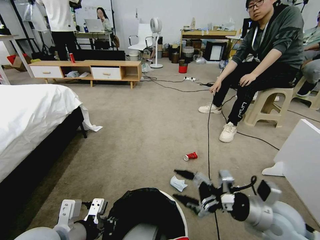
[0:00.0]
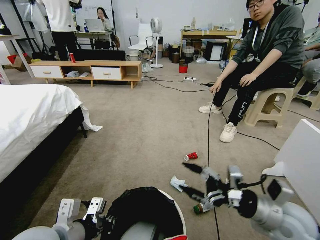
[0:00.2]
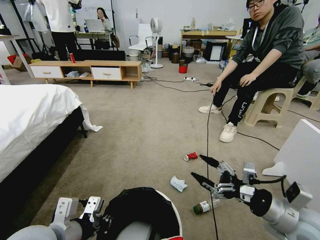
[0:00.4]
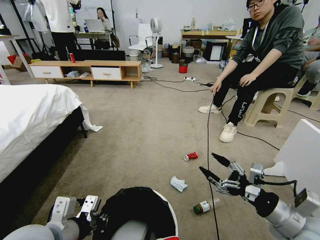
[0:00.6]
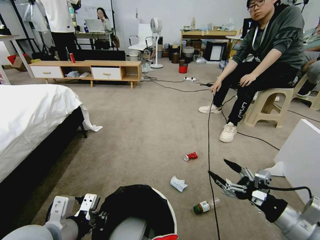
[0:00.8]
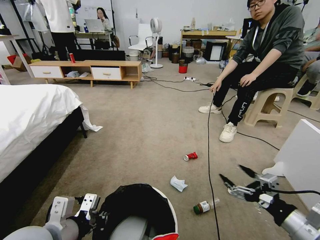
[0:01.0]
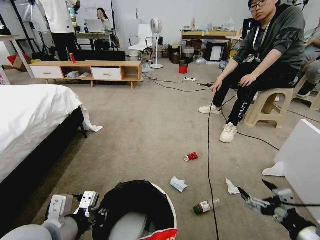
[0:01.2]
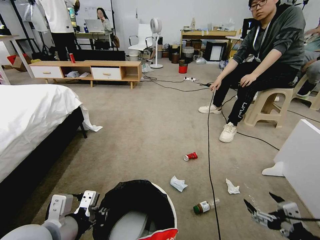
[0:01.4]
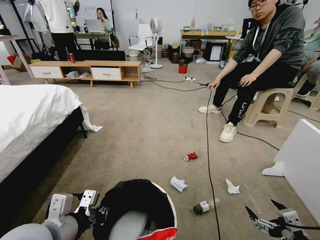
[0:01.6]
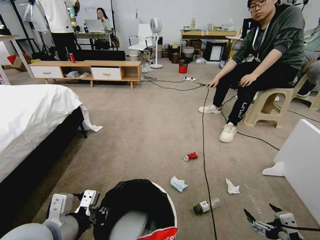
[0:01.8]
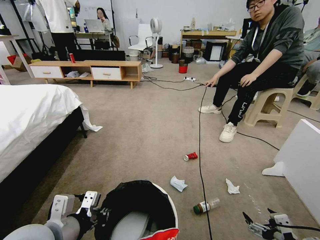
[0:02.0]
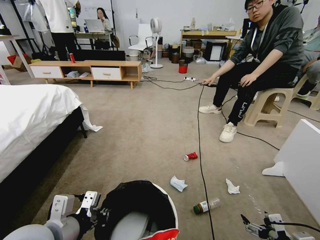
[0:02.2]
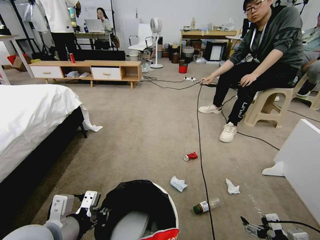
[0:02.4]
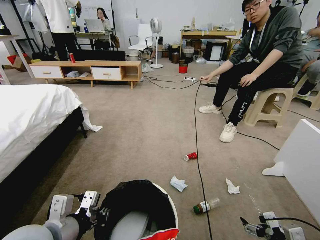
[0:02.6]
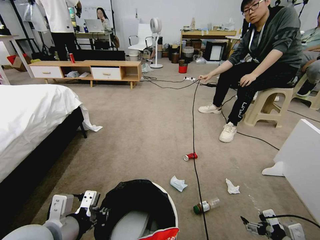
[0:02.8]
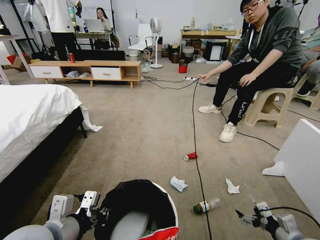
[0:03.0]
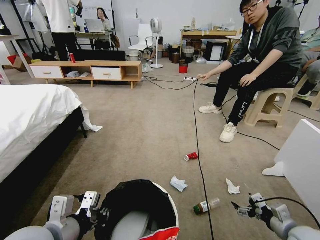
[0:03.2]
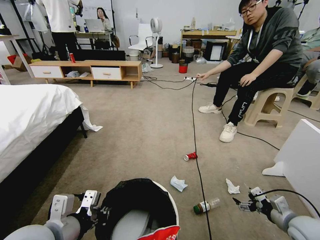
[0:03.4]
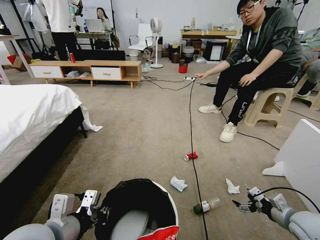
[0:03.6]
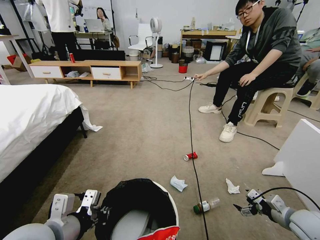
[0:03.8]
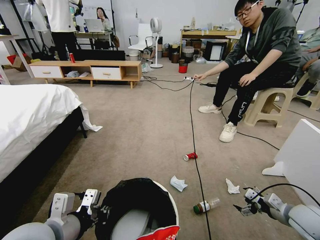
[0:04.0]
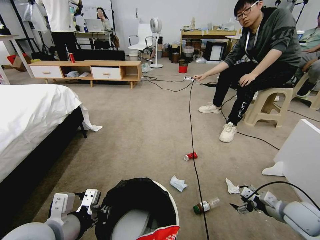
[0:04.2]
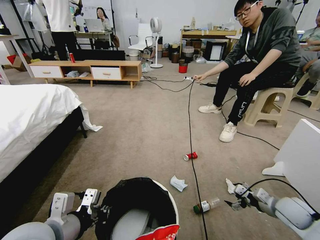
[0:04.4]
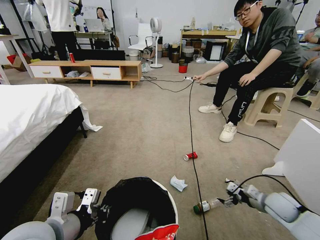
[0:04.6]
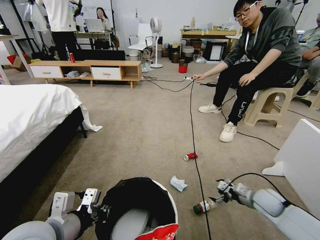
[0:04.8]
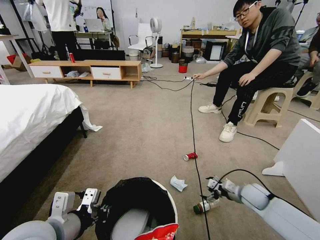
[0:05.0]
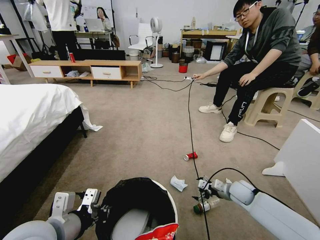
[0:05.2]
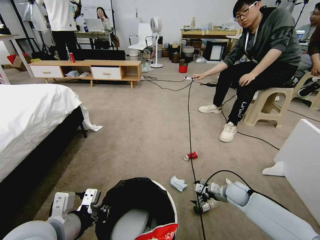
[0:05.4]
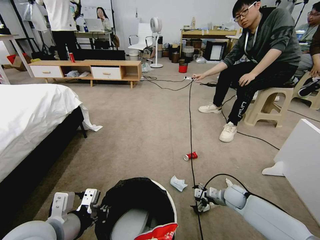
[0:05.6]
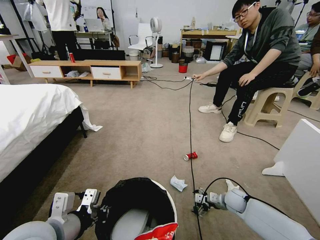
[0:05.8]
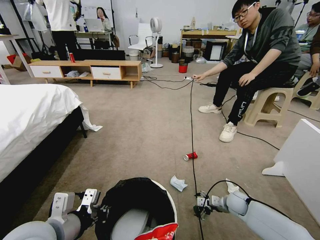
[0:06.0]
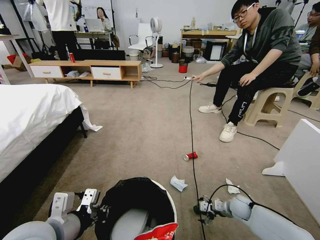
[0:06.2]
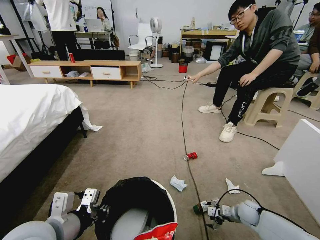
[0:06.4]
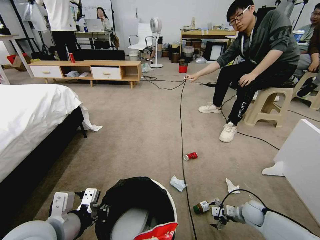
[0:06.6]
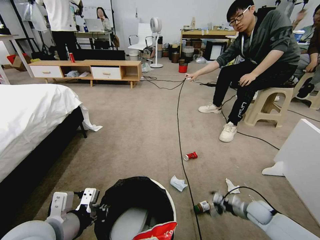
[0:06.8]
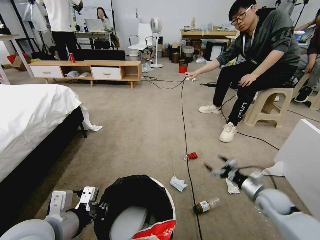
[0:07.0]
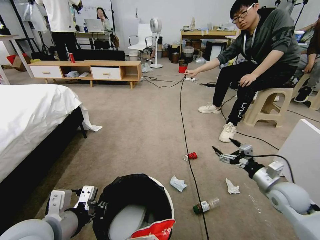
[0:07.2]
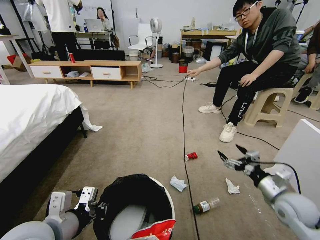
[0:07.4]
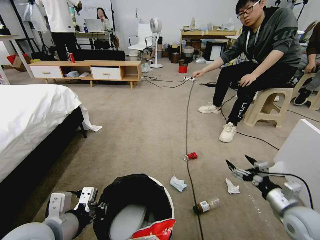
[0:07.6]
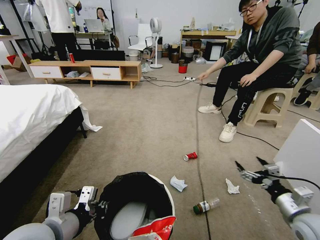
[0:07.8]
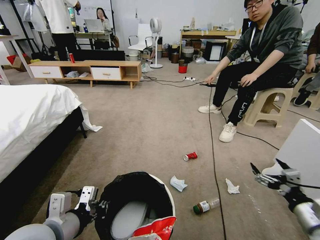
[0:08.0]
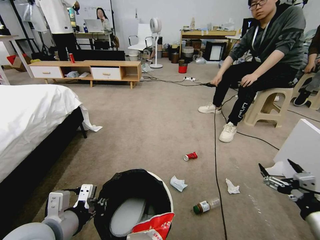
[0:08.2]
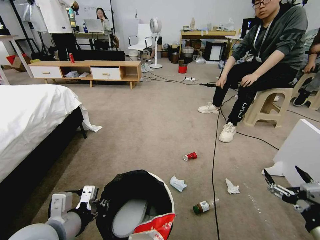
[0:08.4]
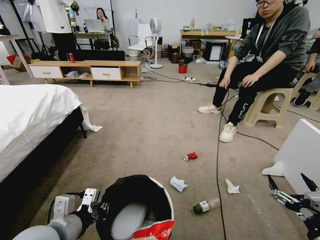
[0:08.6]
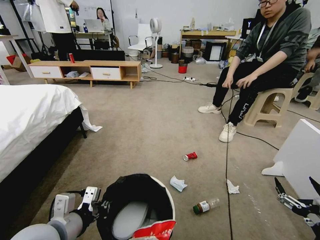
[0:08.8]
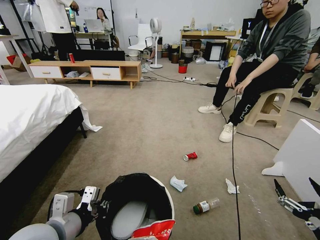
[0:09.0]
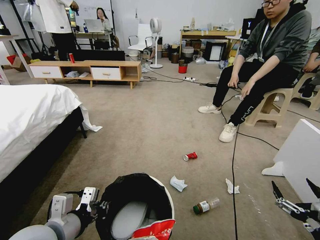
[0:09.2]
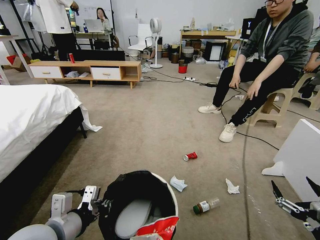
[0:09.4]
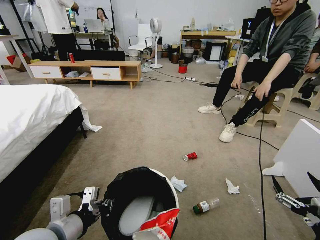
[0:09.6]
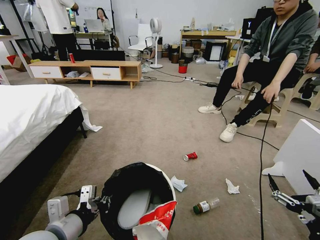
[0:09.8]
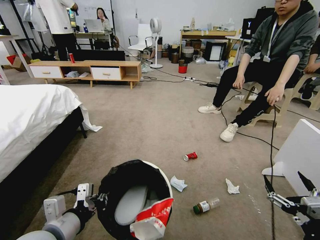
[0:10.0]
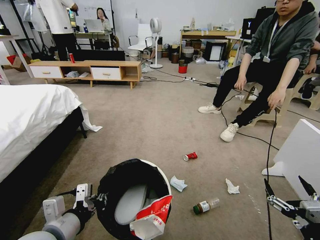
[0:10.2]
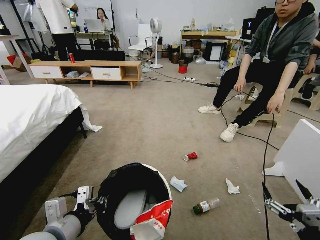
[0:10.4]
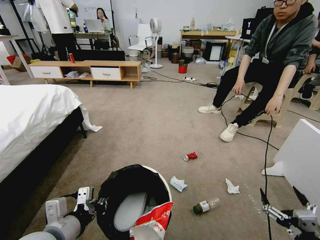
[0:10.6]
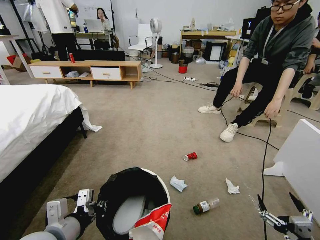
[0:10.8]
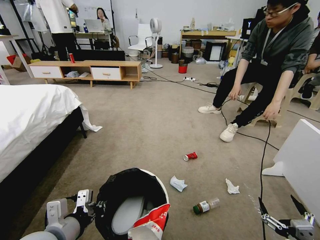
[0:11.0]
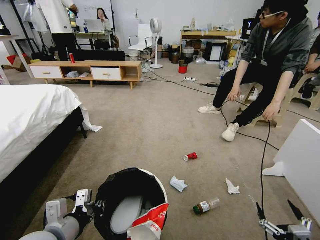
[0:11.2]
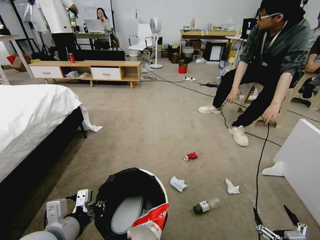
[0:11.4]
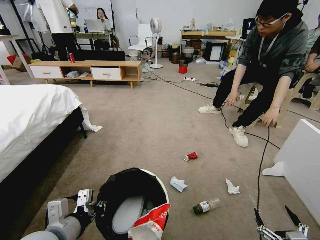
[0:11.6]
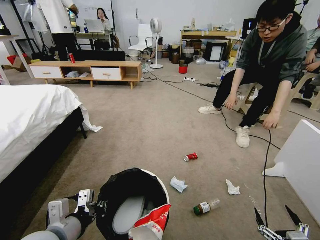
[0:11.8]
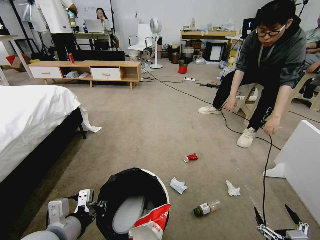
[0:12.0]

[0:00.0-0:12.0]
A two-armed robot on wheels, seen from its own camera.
Task of the whole recording: Pick up the trash bin and place the garbage on the floor into it.
0:00.0 to 0:01.6: The right gripper is displaced backward and to the right by roughly 20 cm.
0:01.6 to 0:03.0: The right gripper heads forward and downward, covering roughly 15 cm.
0:03.0 to 0:04.4: The right gripper moves forward, some 10 cm.
0:04.4 to 0:06.0: The right gripper moves downward, to the left and forward, some 15 cm.
0:06.0 to 0:07.6: The right gripper goes roughly 25 cm upward, backward and to the right.
0:07.6 to 0:09.0: The right gripper is displaced backward by approximately 15 cm.
0:09.0 to 0:10.4: The grippers stay close to where they were, moving slightly.
0:10.4 to 0:12.0: The right gripper travels downward by approximately 5 cm.

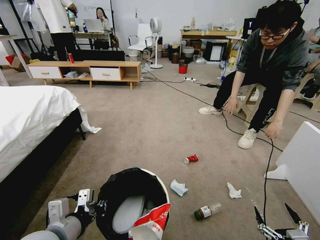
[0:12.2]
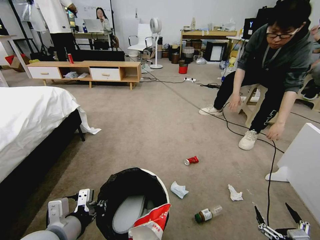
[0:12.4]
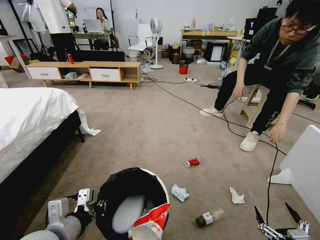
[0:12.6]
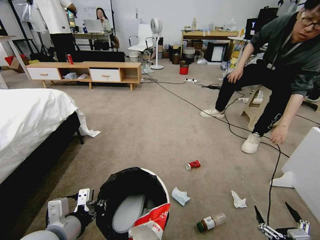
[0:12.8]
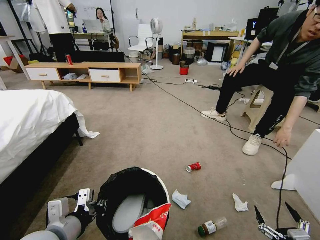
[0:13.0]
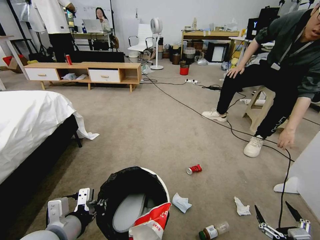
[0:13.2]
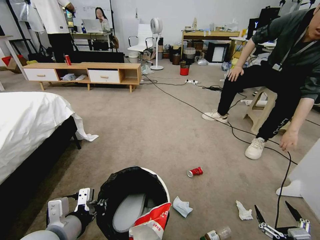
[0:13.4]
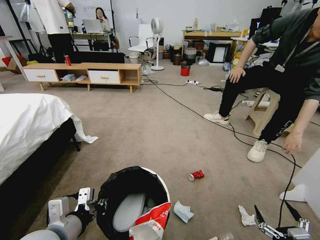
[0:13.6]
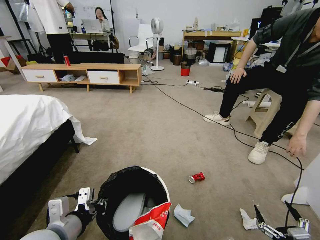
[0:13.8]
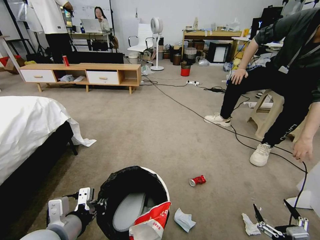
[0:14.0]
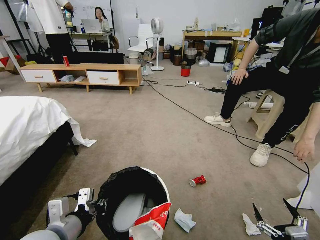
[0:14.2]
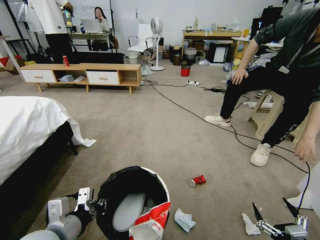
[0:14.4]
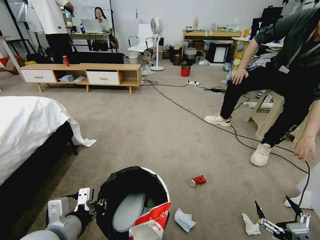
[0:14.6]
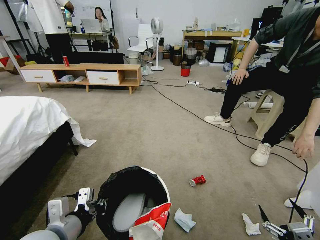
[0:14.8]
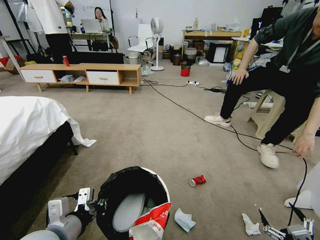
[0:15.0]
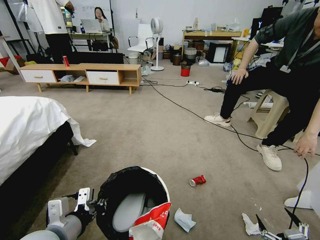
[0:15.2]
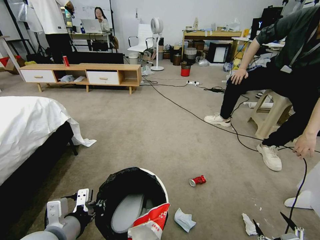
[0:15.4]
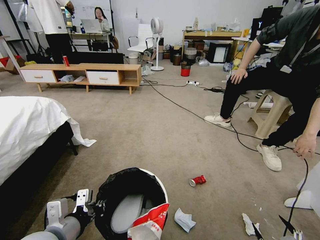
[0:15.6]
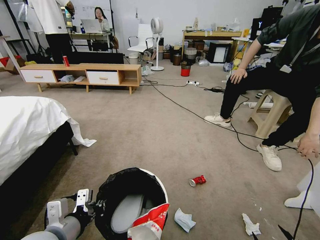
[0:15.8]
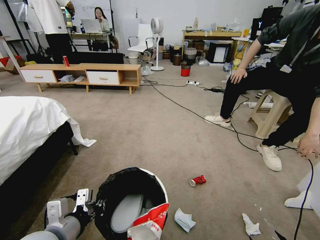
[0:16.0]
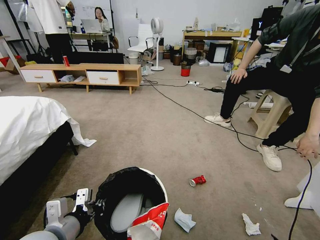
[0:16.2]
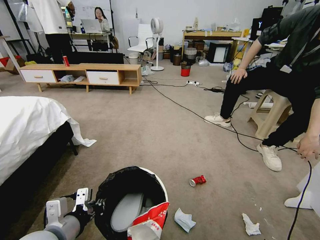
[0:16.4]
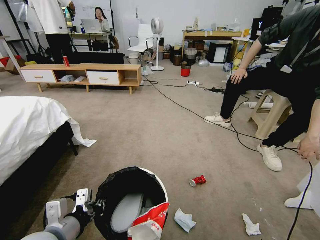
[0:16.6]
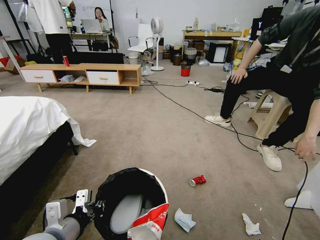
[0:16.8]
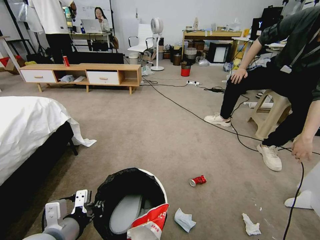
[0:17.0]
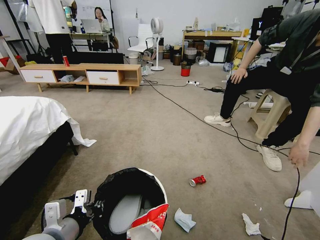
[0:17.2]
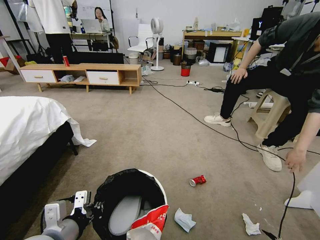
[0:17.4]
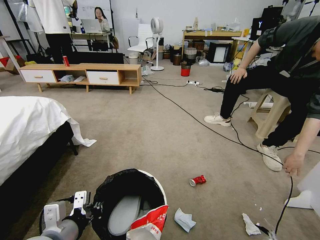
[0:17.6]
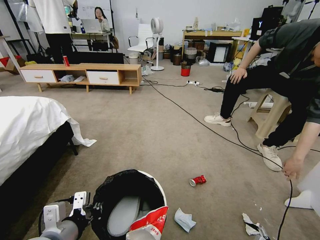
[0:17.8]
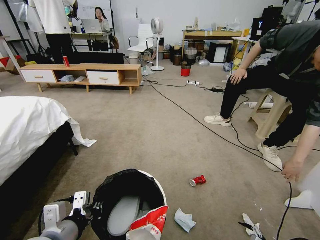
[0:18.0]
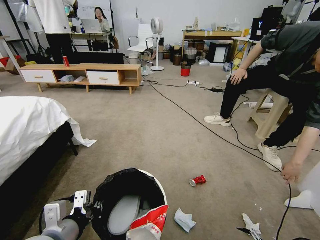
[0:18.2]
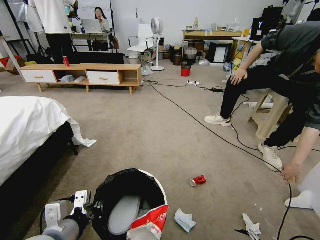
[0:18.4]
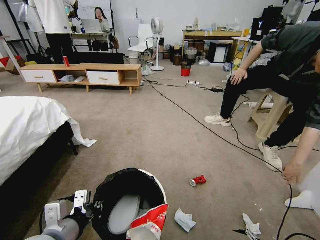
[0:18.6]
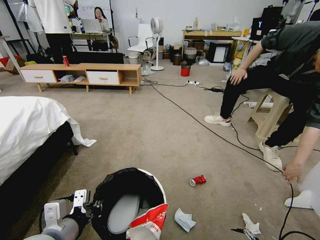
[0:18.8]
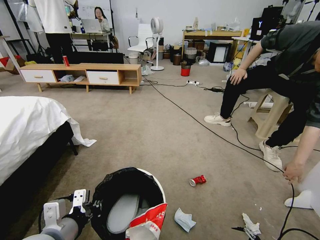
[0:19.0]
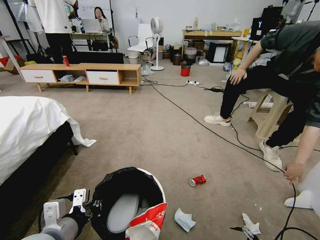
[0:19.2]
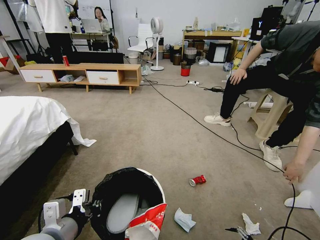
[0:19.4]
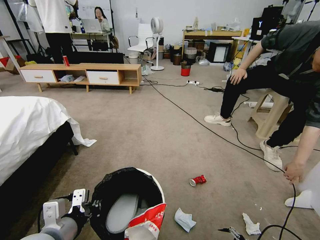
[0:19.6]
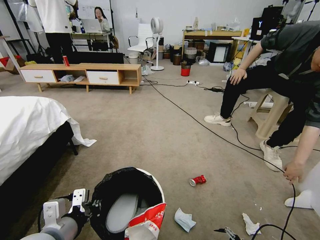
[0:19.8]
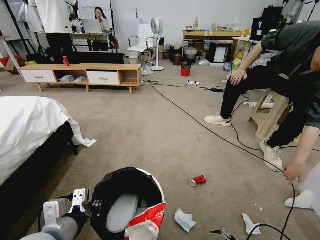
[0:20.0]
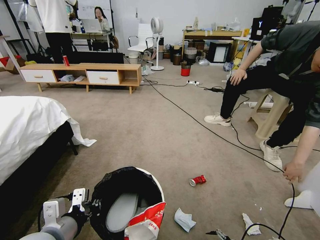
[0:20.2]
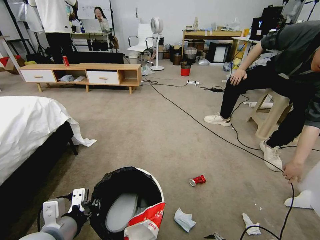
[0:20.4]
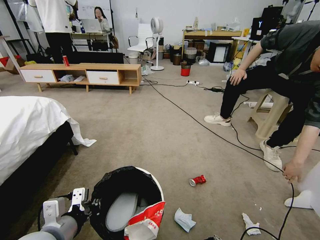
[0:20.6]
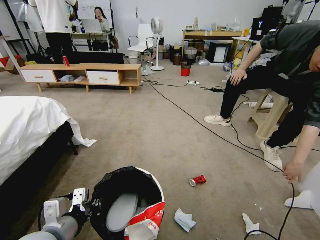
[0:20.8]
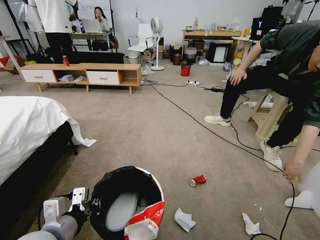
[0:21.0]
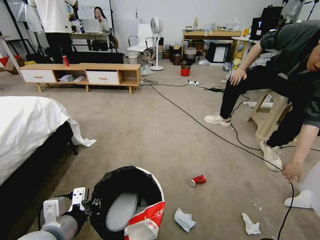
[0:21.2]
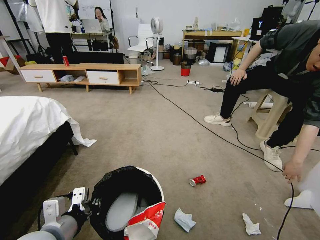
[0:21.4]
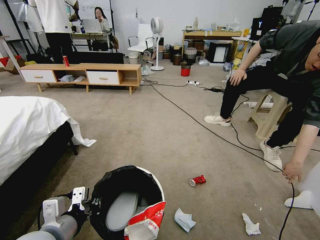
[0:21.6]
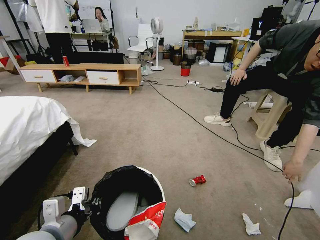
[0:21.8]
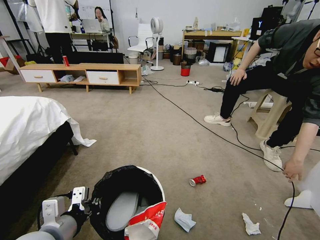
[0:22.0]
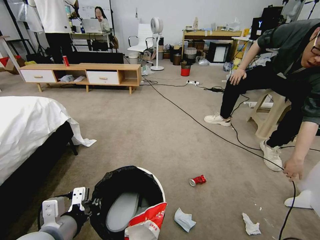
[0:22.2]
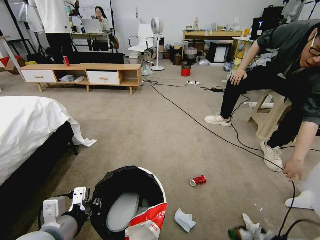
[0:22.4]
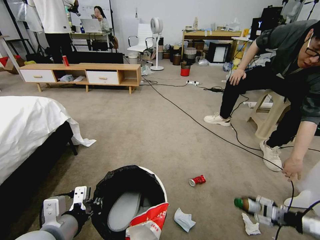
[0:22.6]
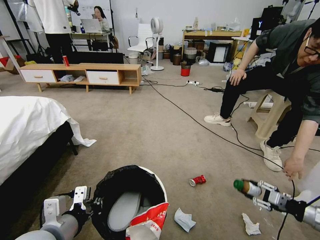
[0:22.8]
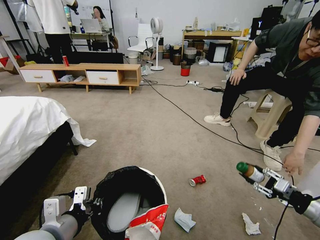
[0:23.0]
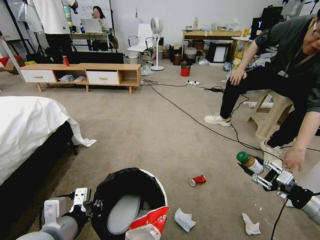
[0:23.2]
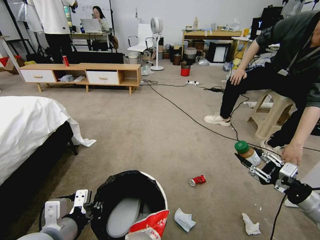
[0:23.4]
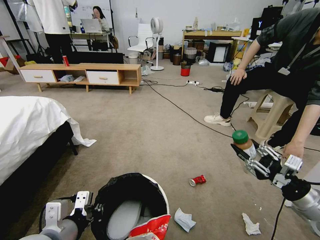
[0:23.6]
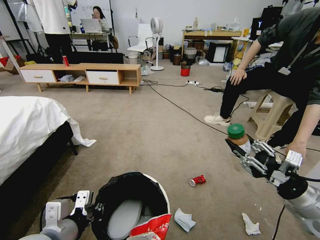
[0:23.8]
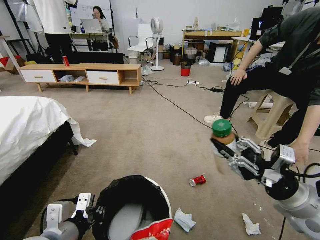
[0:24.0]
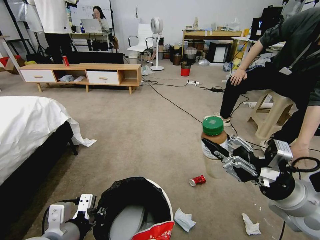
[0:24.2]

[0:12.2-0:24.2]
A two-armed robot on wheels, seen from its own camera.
Task of the whole recording: Pick up the trash bin and place the garbage on the floor into it.
0:13.8 to 0:15.2: The grippers make only small movements.
0:15.2 to 0:16.6: The right gripper is displaced downward by some 10 cm.
0:16.6 to 0:18.2: The right gripper shifts approximately 15 cm forward and to the right.
0:18.2 to 0:19.8: The right gripper shifts some 10 cm forward and downward.
0:19.8 to 0:21.2: There are only small adjustments of the grippers.
0:21.2 to 0:22.6: The right gripper goes about 20 cm upward and to the right, and closes up.
0:22.6 to 0:24.2: The right gripper moves to the left and upward, approximately 30 cm.
